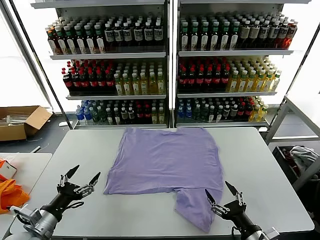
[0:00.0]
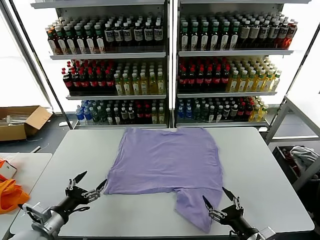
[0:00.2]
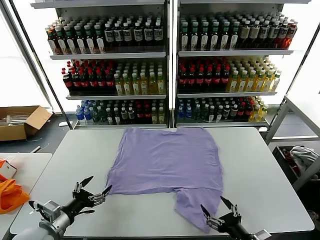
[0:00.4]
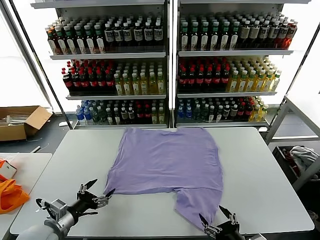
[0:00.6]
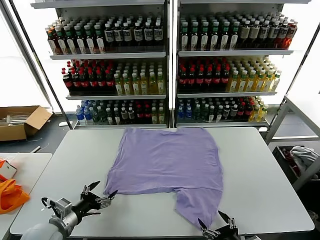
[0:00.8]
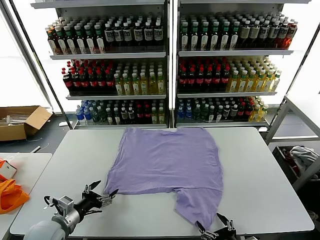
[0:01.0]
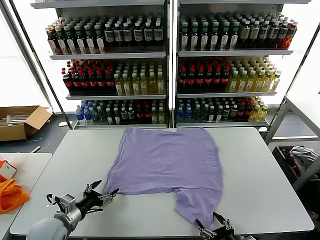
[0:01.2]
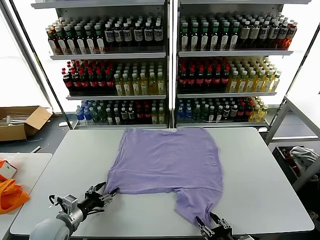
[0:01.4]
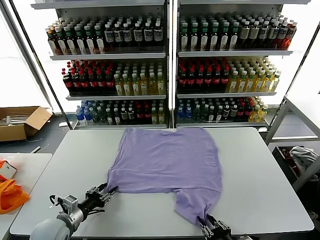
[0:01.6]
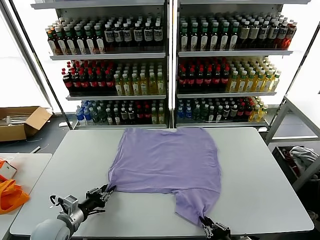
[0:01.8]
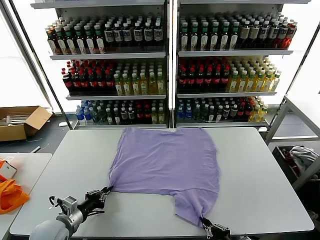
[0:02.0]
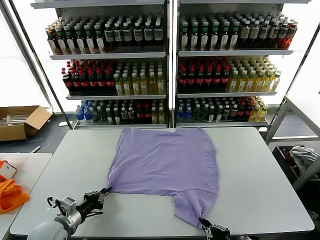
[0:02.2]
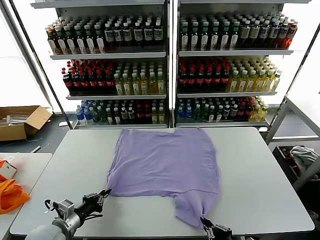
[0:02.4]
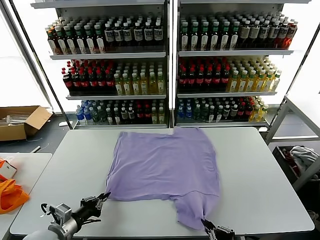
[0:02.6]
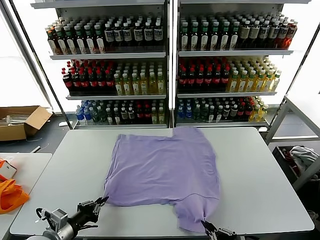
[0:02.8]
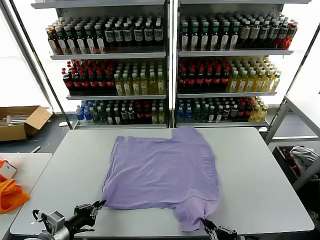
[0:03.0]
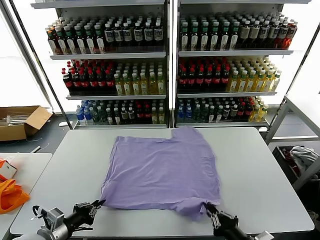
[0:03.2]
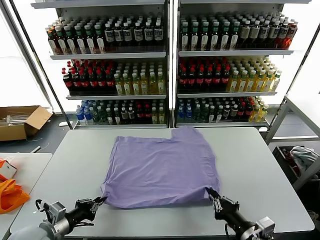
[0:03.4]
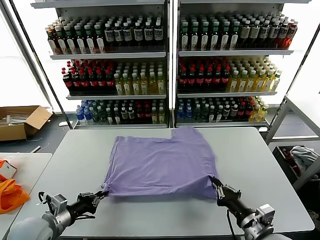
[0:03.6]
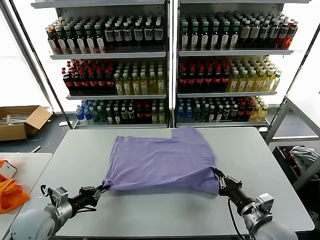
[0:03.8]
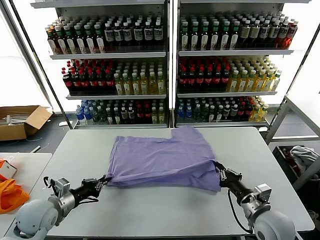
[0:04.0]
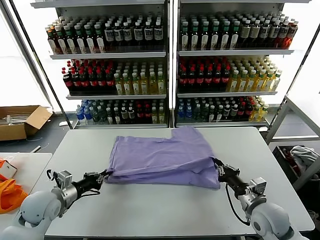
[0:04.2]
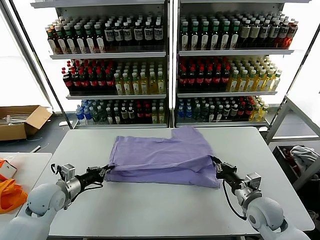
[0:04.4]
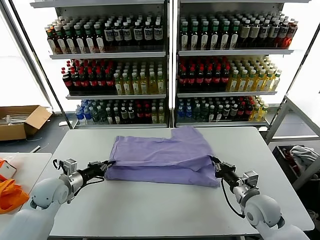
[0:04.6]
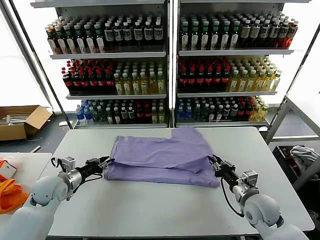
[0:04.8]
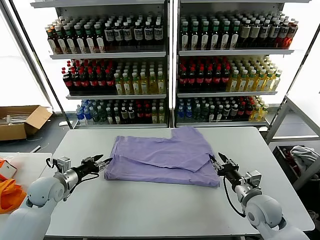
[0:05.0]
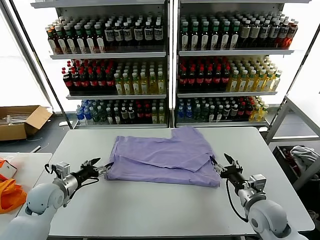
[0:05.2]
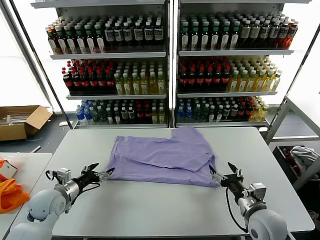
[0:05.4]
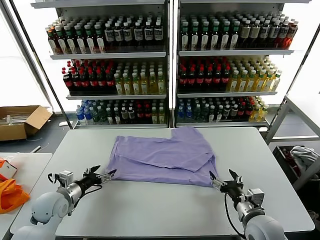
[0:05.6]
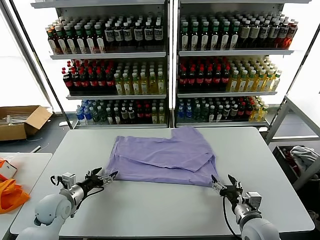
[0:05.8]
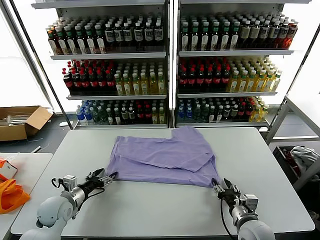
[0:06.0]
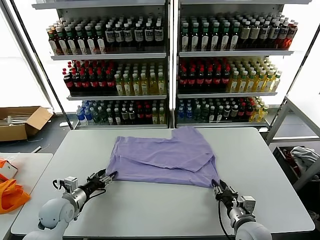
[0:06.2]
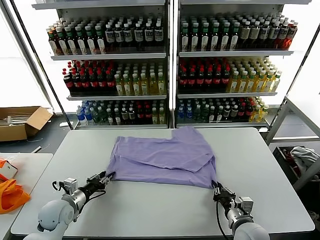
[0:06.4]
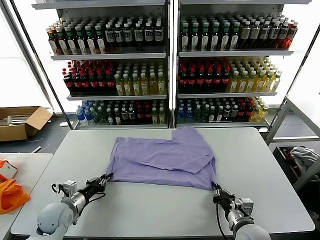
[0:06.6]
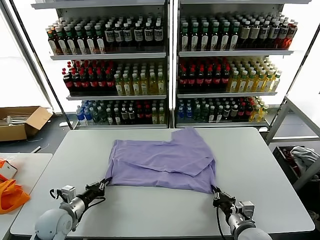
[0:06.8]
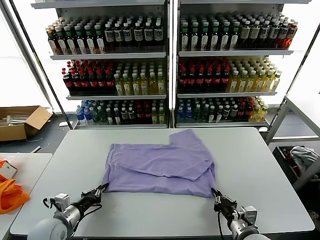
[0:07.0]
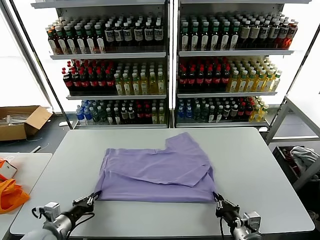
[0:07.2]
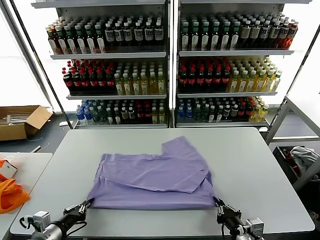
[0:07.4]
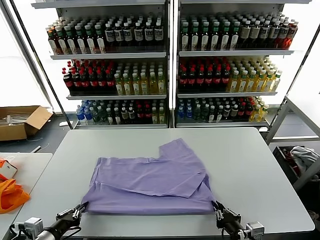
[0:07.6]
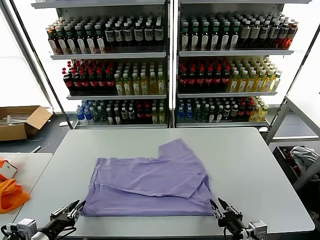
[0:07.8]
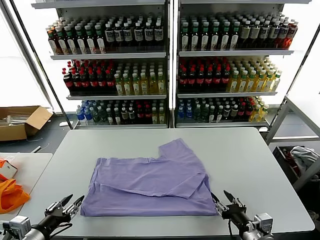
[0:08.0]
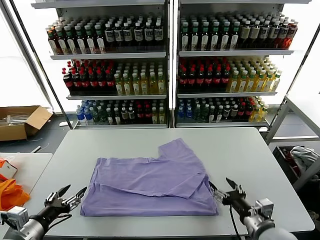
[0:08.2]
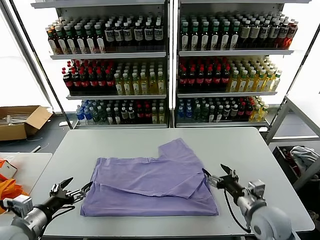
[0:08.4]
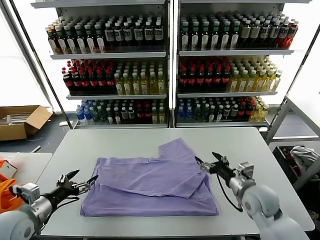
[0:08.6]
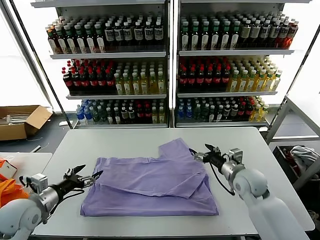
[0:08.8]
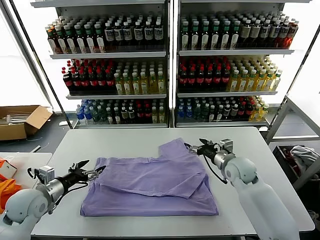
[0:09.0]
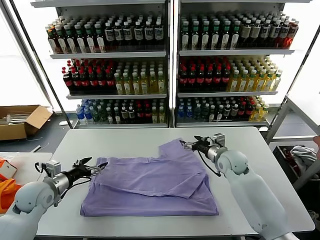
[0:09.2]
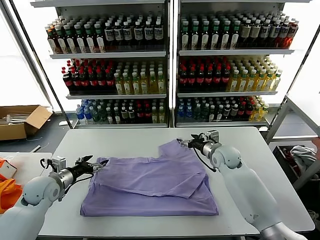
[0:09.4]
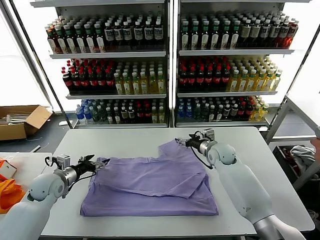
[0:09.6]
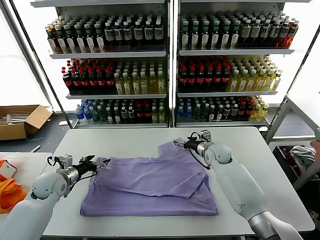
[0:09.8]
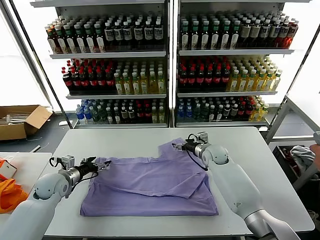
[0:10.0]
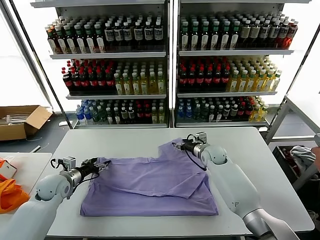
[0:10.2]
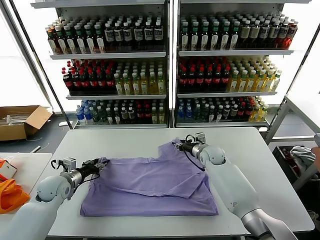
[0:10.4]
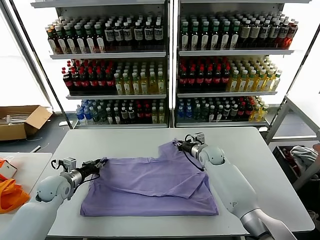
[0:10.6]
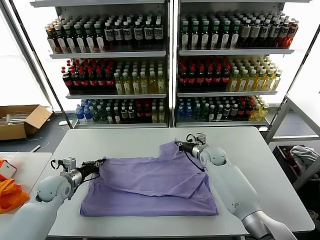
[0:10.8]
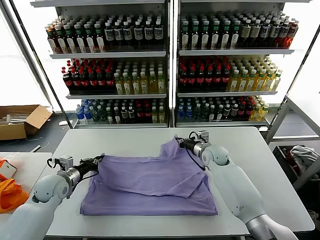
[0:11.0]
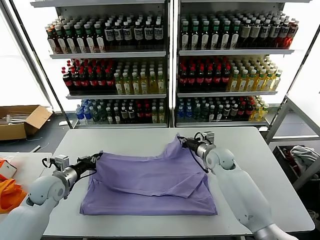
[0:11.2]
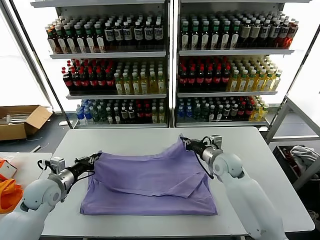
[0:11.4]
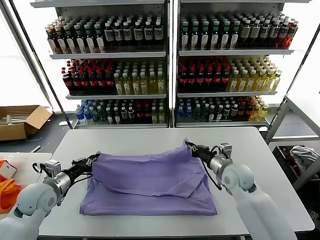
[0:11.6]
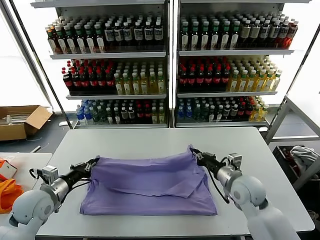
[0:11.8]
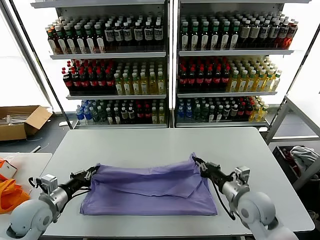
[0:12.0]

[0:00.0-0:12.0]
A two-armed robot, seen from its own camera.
Task of the whole recording: fold and organize the clothes.
Step, 0.0 to 2.4 s: use both grippers simultaneously to clamp the lower edge of the clothing fabric.
Step, 2.6 to 4.8 s: use both grippers to drag the lower edge of the fabric forward and fold it over the upper edge.
Step, 5.0 to 7.8 s: Drag the clothes downward with both gripper.
Step, 8.0 to 10.8 s: use both grippers simultaneously to clamp the upper edge of the clothing fabric.
1.6 to 3.0 s: The right gripper heads upward, covering some 5 cm, while the left gripper moves backward and upward, some 10 cm, and closes up.
3.0 to 4.4 s: Both grippers move forward, about 20 cm.
4.4 to 6.0 s: The left gripper shifts some 5 cm downward, and opens. Meanwhile the right gripper heads backward, covering about 5 cm, and opens up.
6.0 to 7.6 s: The right gripper shifts roughly 10 cm backward. Meanwhile the left gripper goes approximately 15 cm backward, and closes its fingers.
7.6 to 9.0 s: The left gripper travels forward by about 15 cm, and opens its fingers. The right gripper goes approximately 30 cm forward, and opens up.
9.0 to 10.4 s: The left gripper is displaced forward and downward by about 10 cm, and closes up. The right gripper shifts some 10 cm forward, to the left and downward, and closes up.
10.4 to 12.0 s: The left gripper goes approximately 10 cm backward and upward, and closes, while the right gripper travels backward by about 25 cm, and closes up.

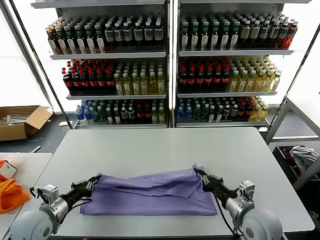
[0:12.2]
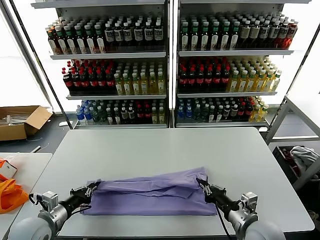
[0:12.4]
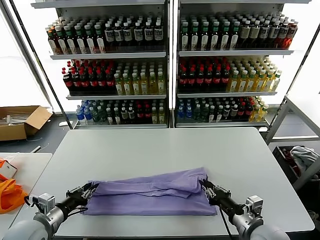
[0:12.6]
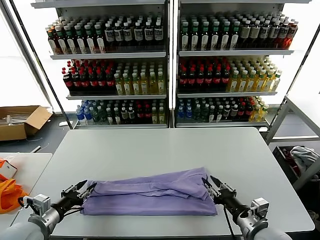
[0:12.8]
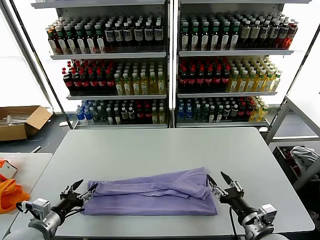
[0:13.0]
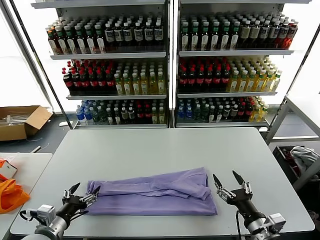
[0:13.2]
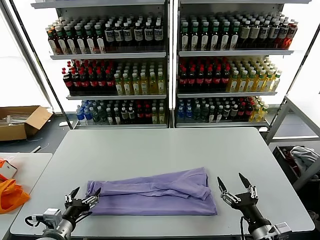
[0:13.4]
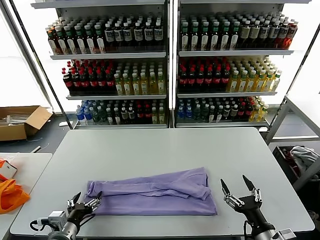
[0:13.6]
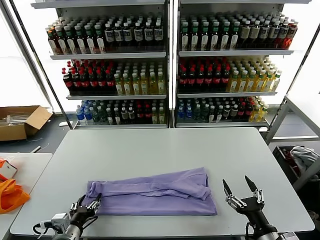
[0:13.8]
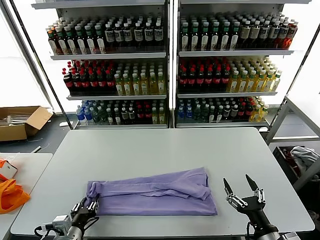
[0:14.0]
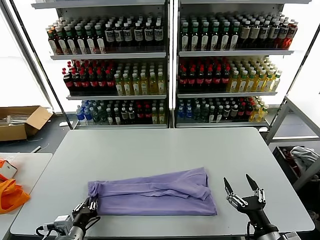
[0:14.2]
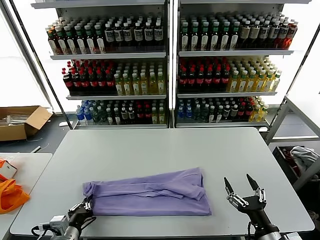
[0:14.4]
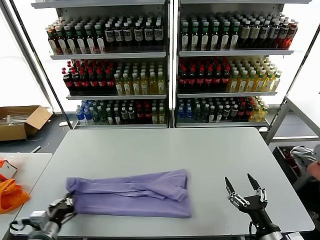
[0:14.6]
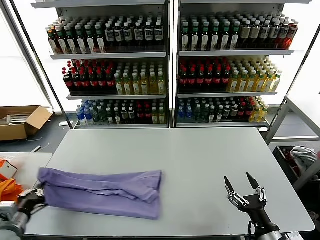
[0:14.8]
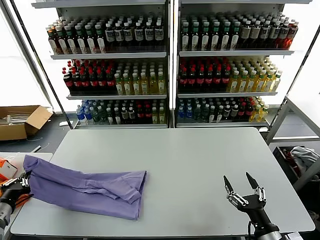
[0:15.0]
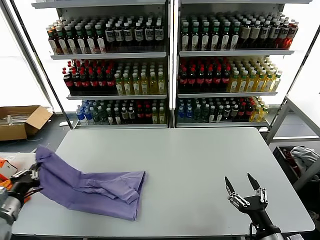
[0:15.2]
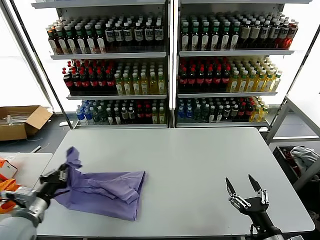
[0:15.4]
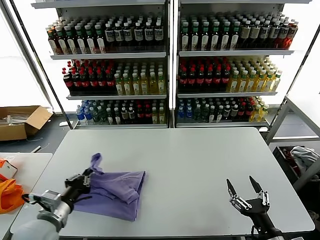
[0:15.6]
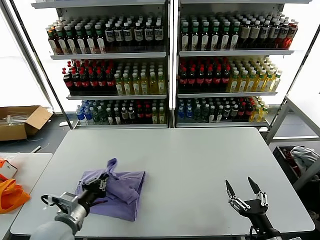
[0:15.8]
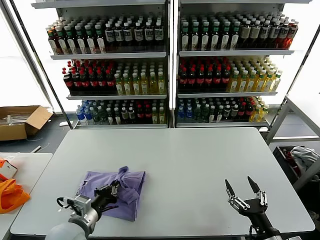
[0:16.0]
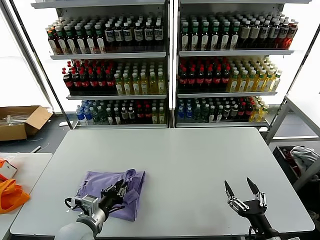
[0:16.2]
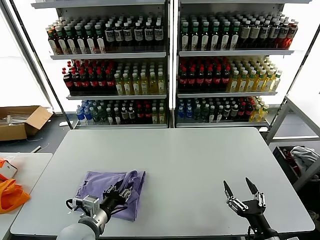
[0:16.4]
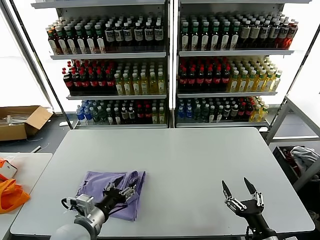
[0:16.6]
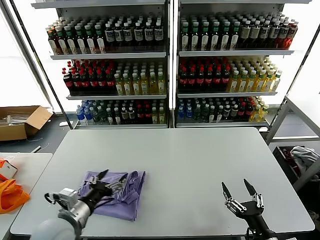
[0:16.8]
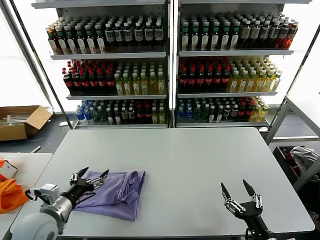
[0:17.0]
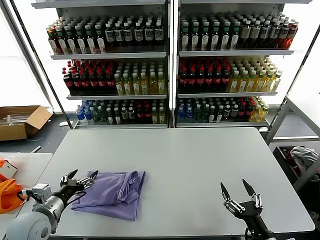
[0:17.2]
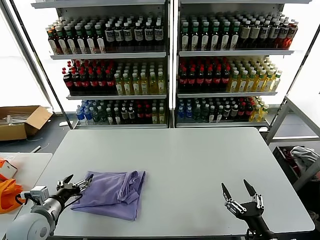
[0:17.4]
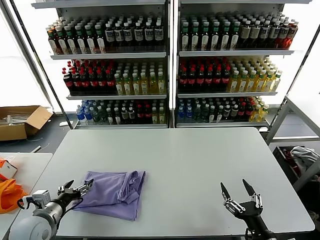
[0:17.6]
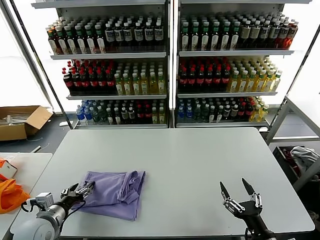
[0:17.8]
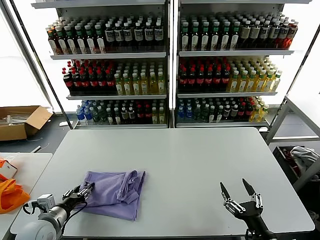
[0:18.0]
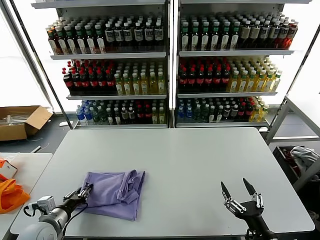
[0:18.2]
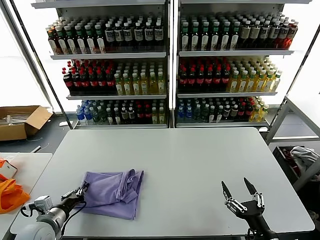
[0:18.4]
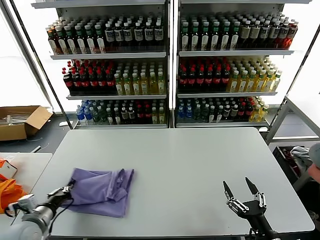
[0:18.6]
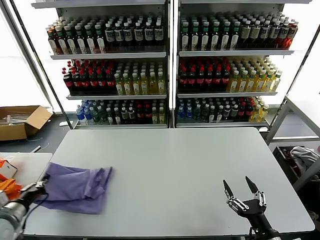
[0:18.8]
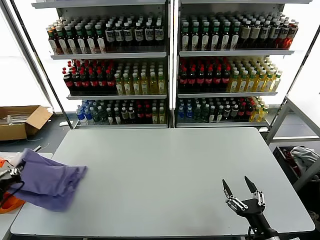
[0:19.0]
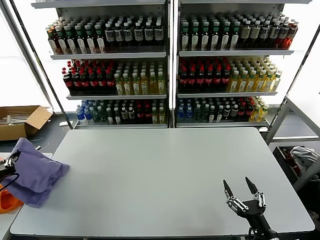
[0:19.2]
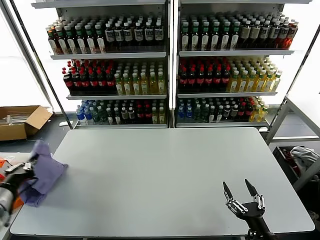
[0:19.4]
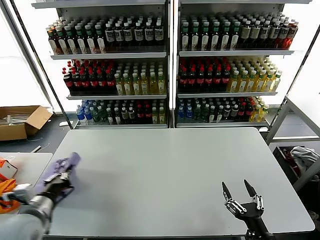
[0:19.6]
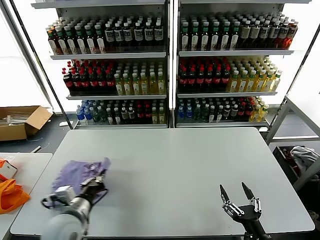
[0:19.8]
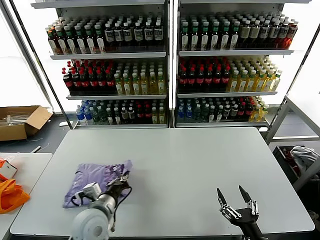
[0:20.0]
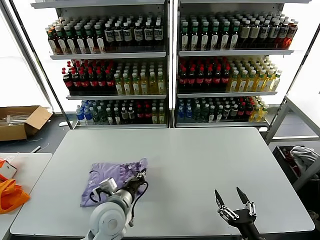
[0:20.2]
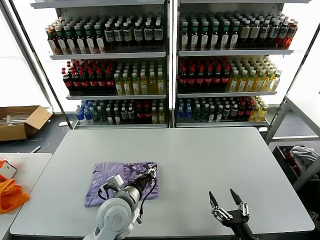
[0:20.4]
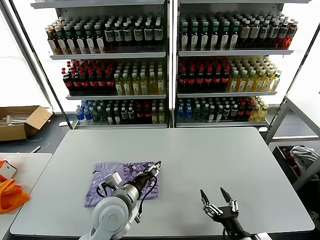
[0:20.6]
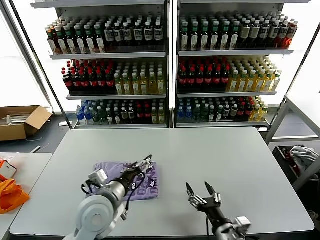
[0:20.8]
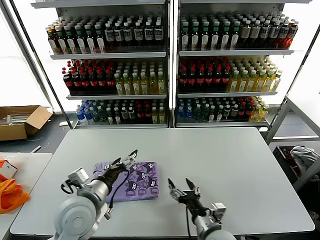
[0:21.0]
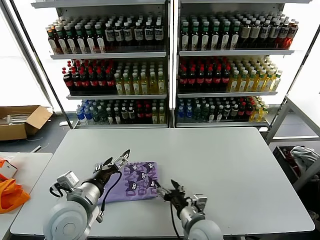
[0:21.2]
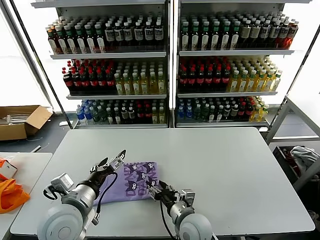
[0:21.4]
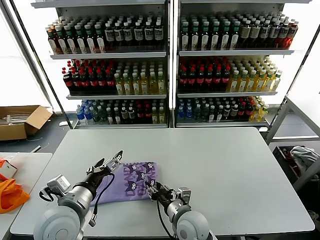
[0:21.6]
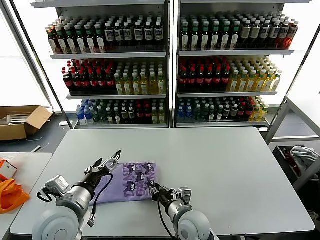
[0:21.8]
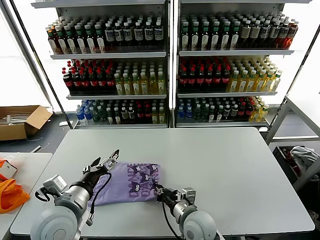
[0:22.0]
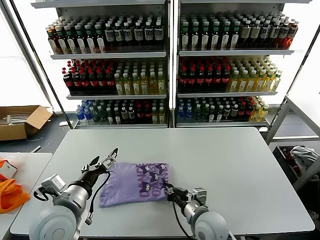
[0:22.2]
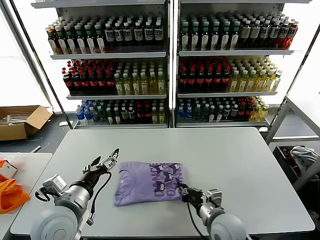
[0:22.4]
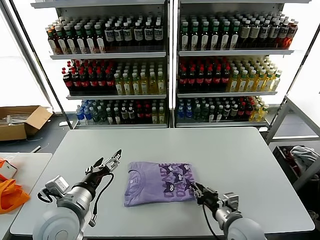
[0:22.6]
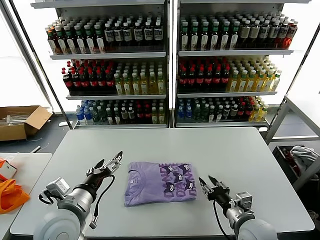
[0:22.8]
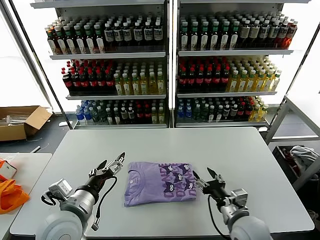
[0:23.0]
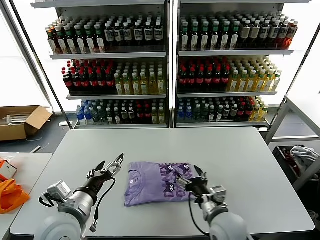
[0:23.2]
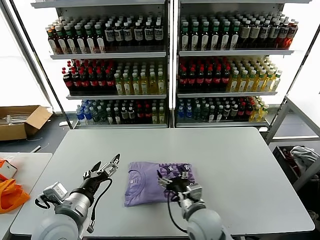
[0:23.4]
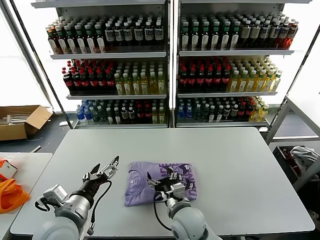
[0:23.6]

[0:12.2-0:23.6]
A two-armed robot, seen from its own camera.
Task of the whole recording: fold and organize the clothes.
Step, 13.0 to 14.2 s: use the left gripper to clamp the left edge of the fabric.
Step, 14.4 to 16.6 s: use the left gripper to drag the left edge of the fabric to the left and folds it over the right edge.
Step, 16.8 to 20.4 s: Flip the folded clothes over with left gripper.
12.2 to 13.6 s: The right gripper moves backward, roughly 10 cm, and opens up; the left gripper is displaced backward and to the right by about 10 cm, and opens up.
13.6 to 15.0 s: The left gripper shifts some 20 cm to the left and upward, and closes.
15.0 to 16.4 s: The left gripper shifts some 25 cm to the right, and opens up.
16.4 to 17.8 s: The left gripper heads to the left, covering about 15 cm, and opens its fingers.
17.8 to 19.4 s: The left gripper shifts approximately 15 cm upward and to the left, and closes up.
19.4 to 20.8 s: The right gripper travels to the left by about 10 cm. The left gripper heads to the right, covering approximately 30 cm, and opens its fingers.
20.8 to 22.2 s: The left gripper moves to the left, about 10 cm. Meanwhile the right gripper moves forward and to the left, some 15 cm, and closes its fingers.
22.2 to 23.6 s: The right gripper reaches about 10 cm to the right, then returns, and opens.
